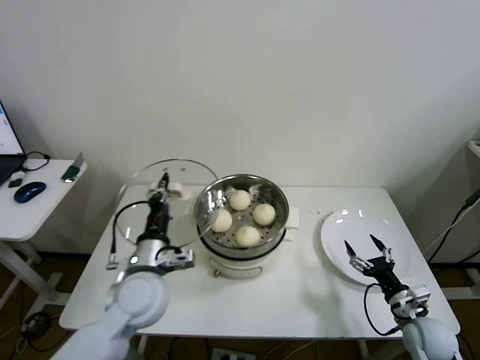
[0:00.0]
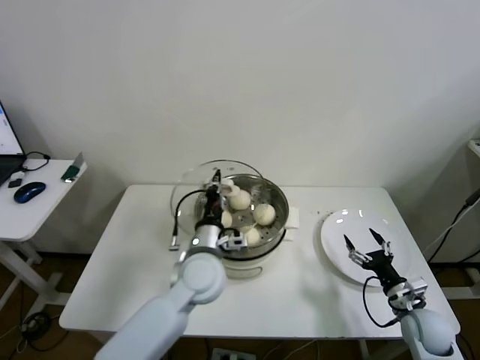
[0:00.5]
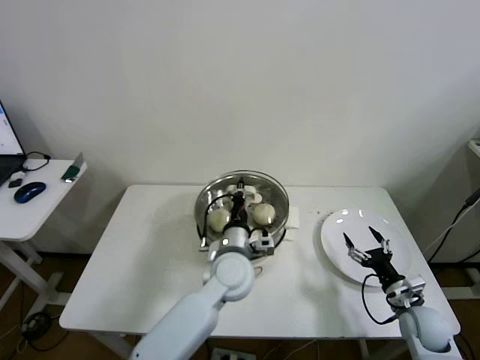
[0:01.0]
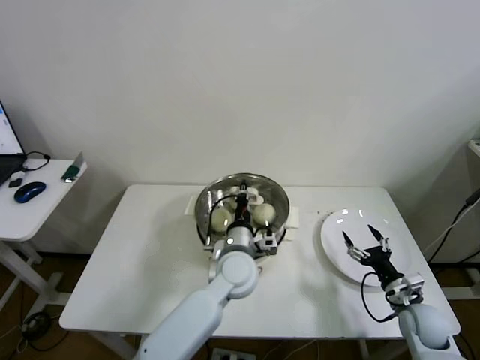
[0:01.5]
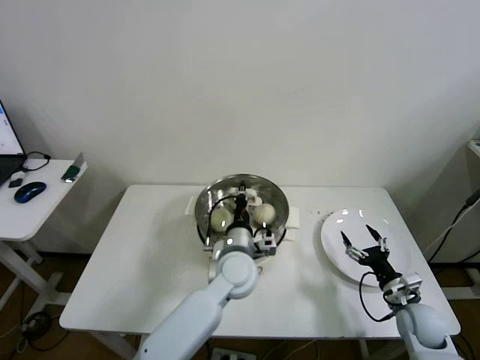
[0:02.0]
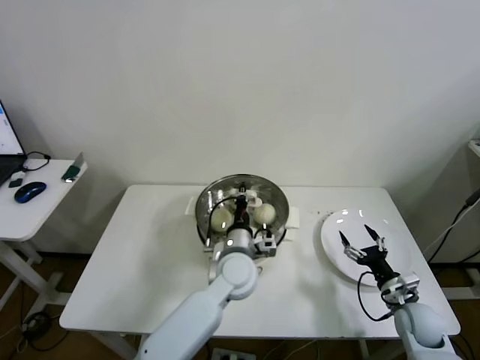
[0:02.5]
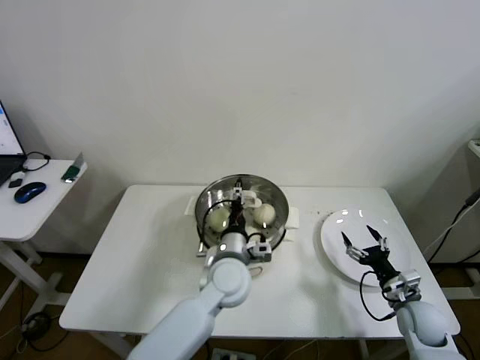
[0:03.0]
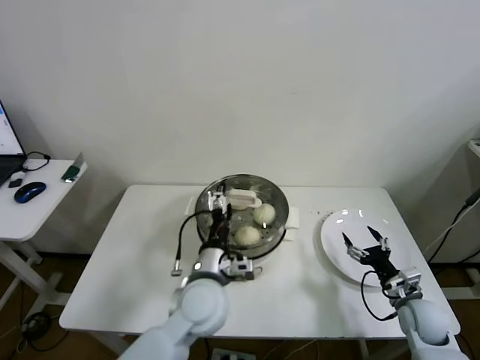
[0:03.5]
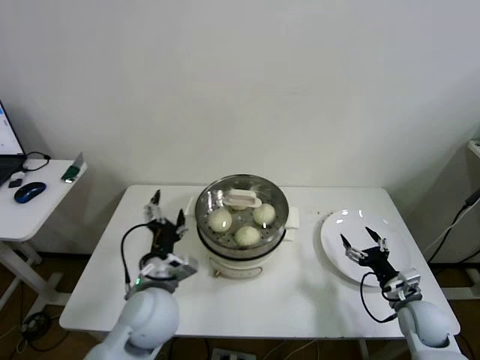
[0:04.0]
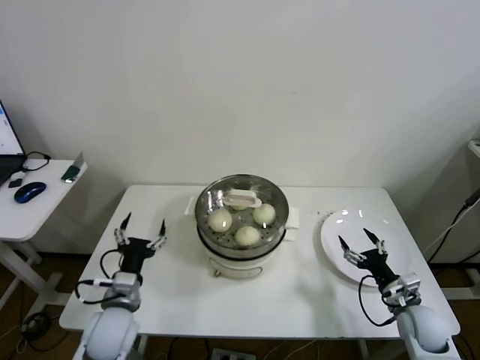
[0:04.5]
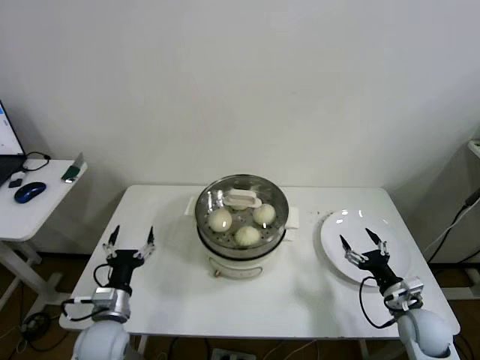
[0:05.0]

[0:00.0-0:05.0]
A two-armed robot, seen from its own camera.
Step, 0:00.0 to 0:03.0: Place the pot lid on the steamer with left gripper.
0:00.0 to 0:02.5: The left gripper heads to the right and forward, covering some 20 cm.
0:02.5 to 0:05.0: The left gripper heads to the left and backward, covering roughly 30 cm, and opens its fingers.

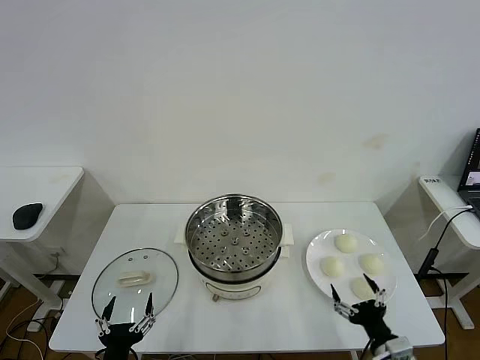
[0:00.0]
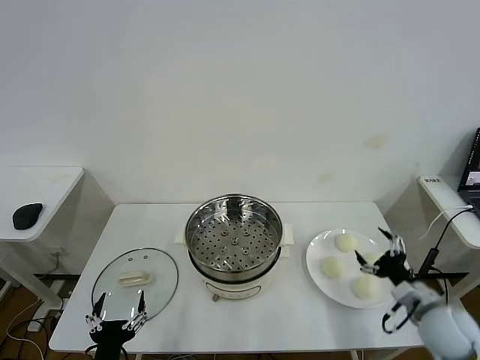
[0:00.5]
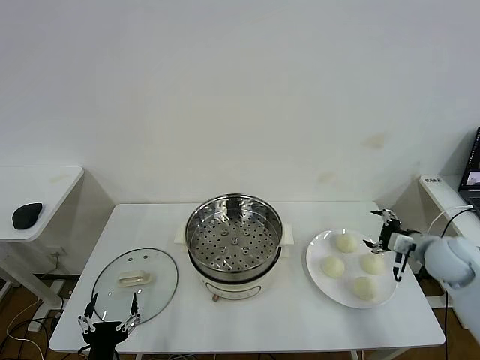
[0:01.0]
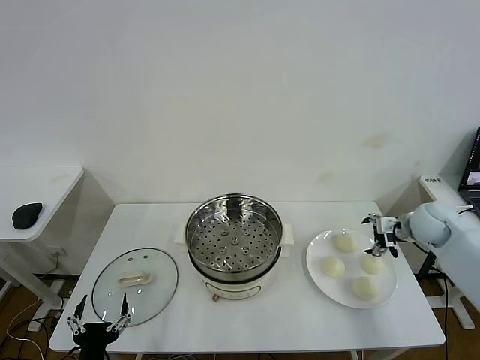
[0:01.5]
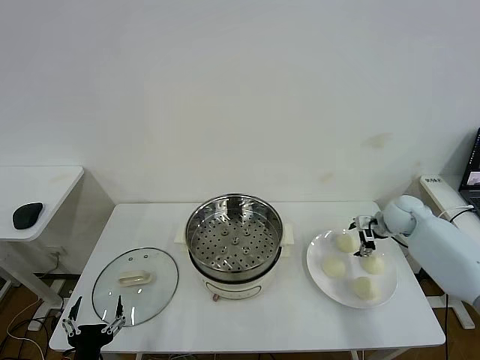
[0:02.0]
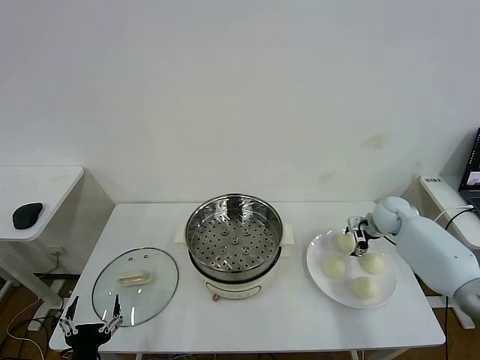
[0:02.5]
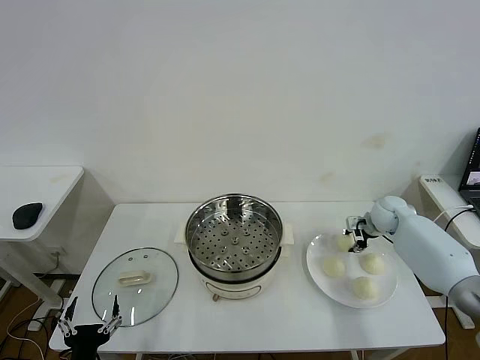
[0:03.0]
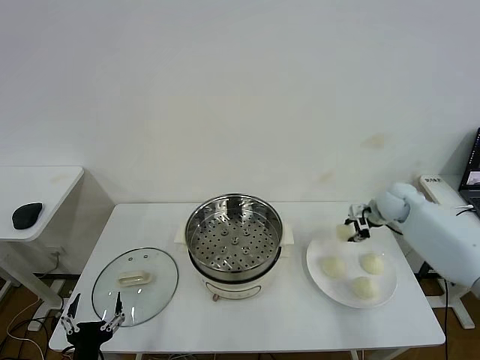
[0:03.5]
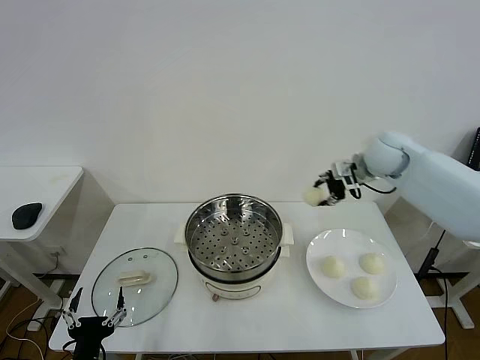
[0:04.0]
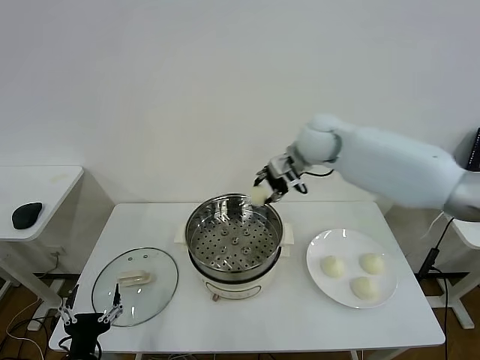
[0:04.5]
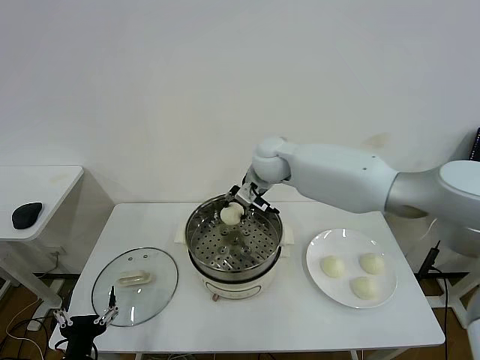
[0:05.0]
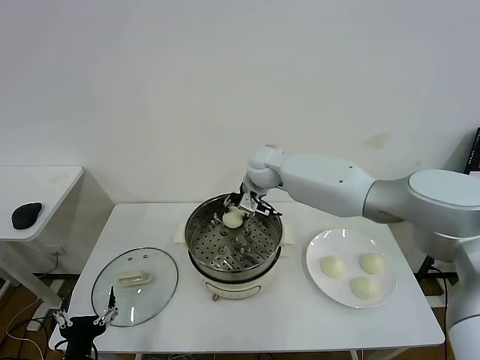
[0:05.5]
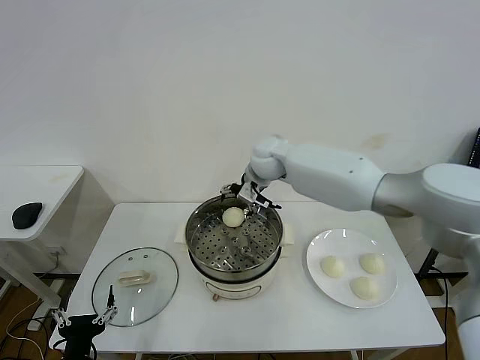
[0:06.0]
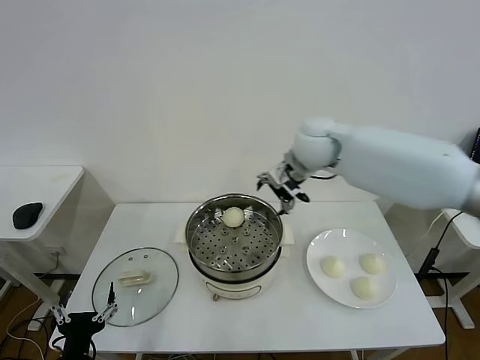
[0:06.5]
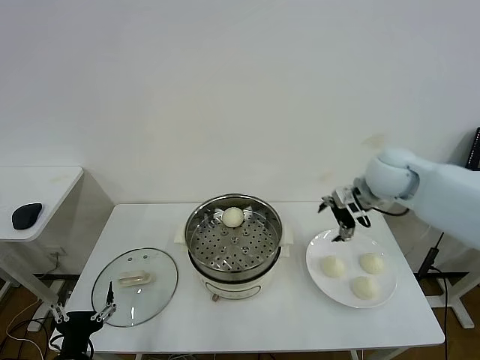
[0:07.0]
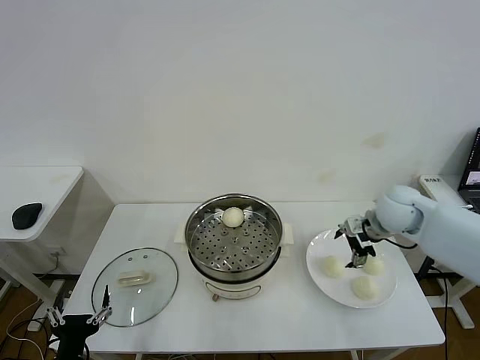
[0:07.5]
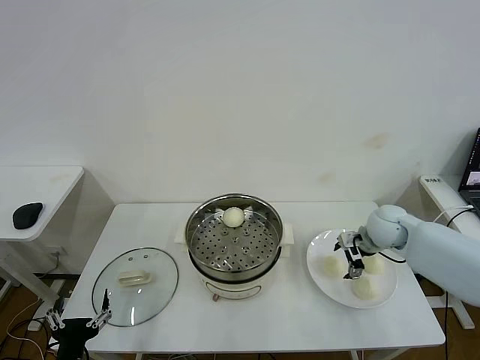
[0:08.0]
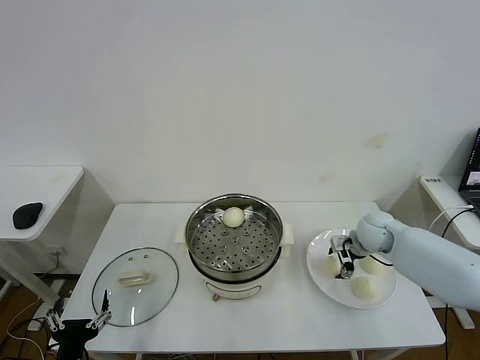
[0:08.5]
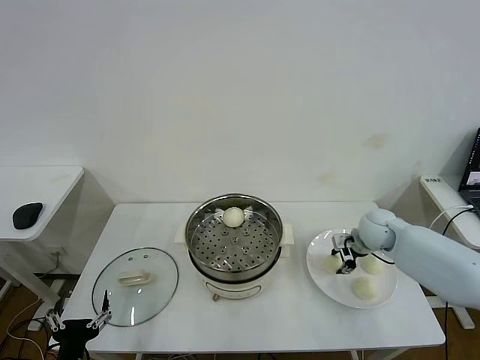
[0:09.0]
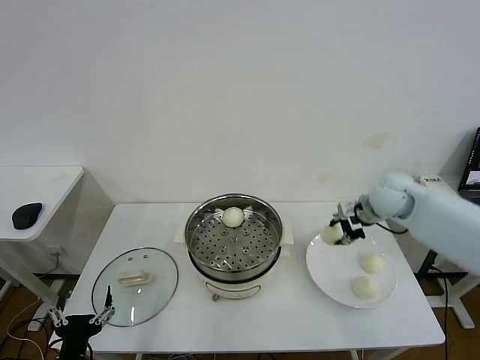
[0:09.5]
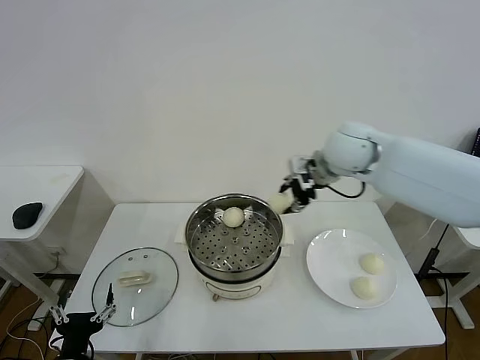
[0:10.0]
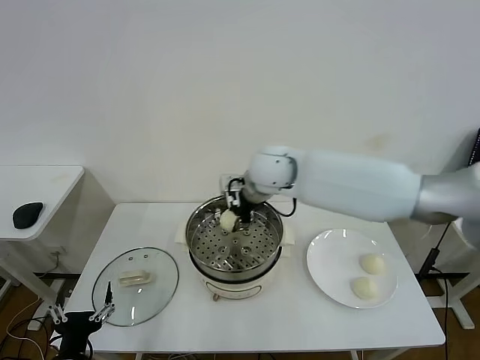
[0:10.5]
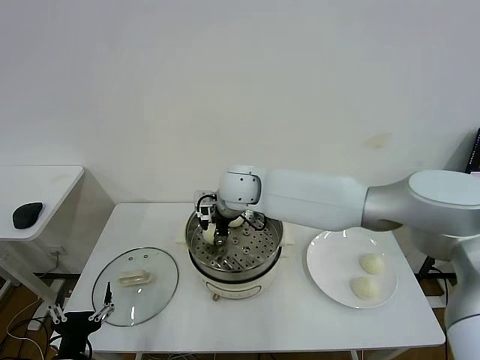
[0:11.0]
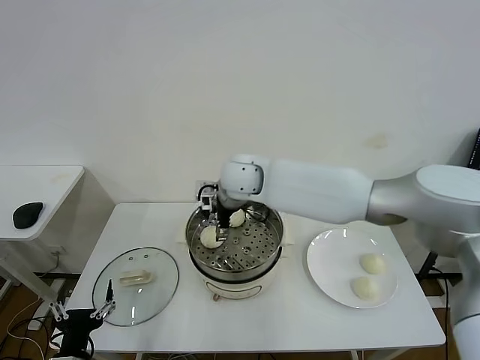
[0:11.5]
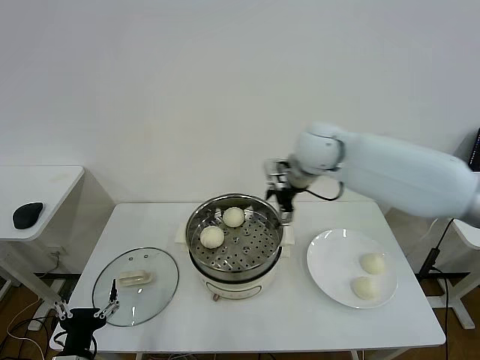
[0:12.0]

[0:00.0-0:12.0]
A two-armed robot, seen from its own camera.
Step, 0:00.0 to 0:02.5: Grasp the baozi in the plate with right gripper.
Step, 0:03.5 to 0:05.5: Place the baozi on the steamer with right gripper.
Step, 0:06.0 to 0:08.5: Grasp the baozi in the plate with right gripper.
Step, 0:09.0 to 0:11.0: Place the baozi on the steamer with right gripper.
0:02.0 to 0:04.0: The right gripper shifts approximately 25 cm upward and to the left, and closes.
0:04.0 to 0:06.0: The right gripper moves to the left, approximately 20 cm, and opens up.
0:06.0 to 0:08.0: The right gripper goes approximately 30 cm to the right and downward.
0:08.0 to 0:10.0: The right gripper travels upward and to the left by about 30 cm, and closes its fingers.
0:10.0 to 0:12.0: The right gripper goes to the left and returns, about 15 cm each way, and opens its fingers.

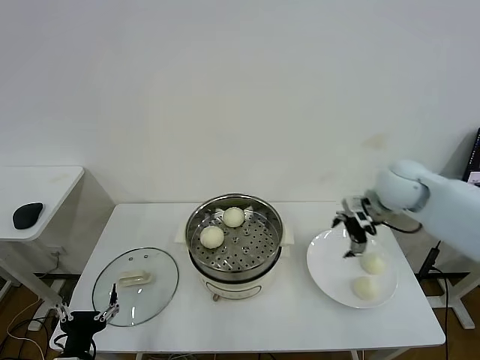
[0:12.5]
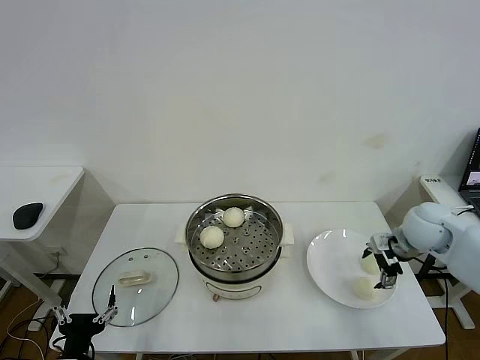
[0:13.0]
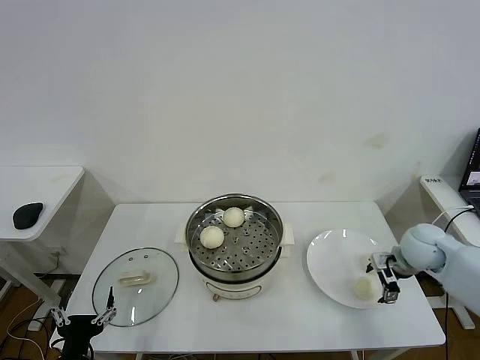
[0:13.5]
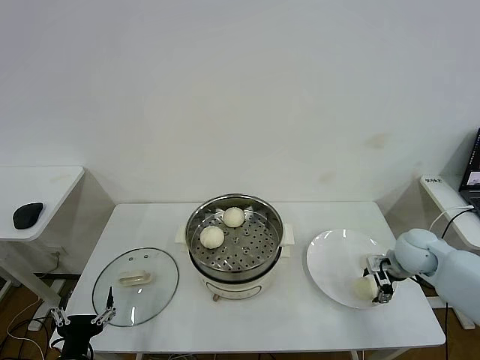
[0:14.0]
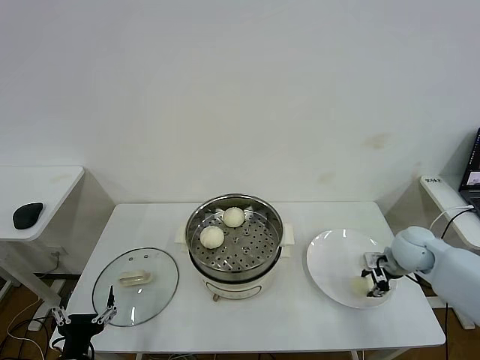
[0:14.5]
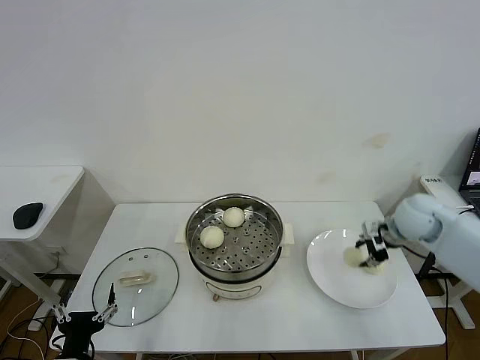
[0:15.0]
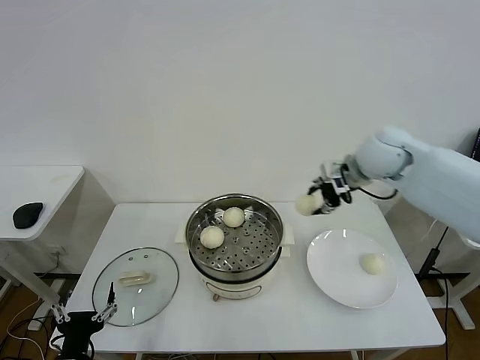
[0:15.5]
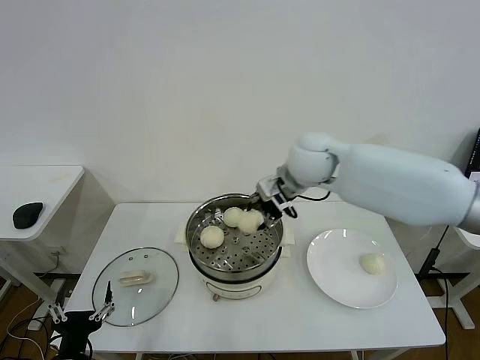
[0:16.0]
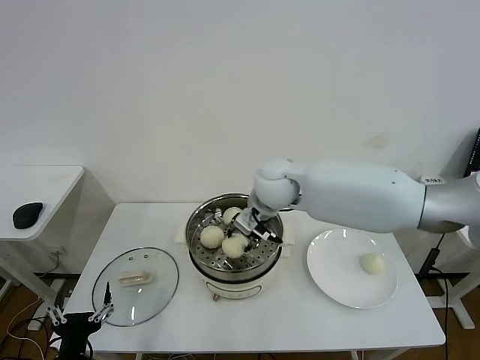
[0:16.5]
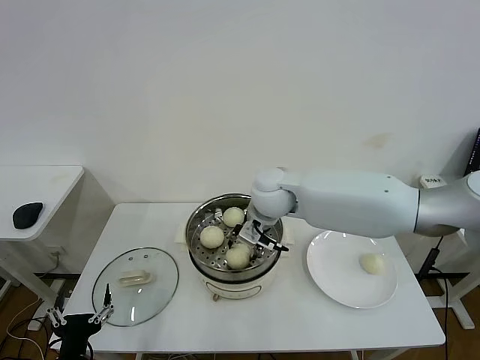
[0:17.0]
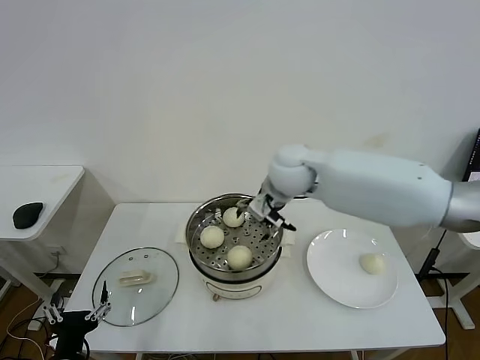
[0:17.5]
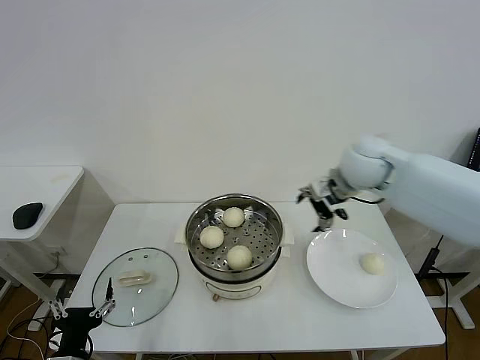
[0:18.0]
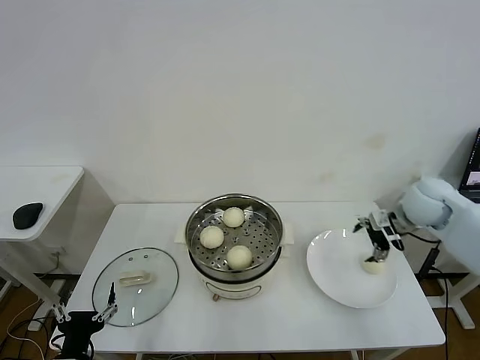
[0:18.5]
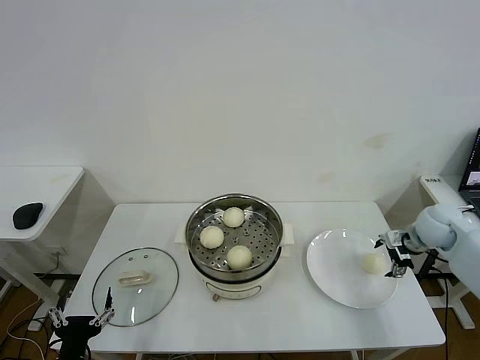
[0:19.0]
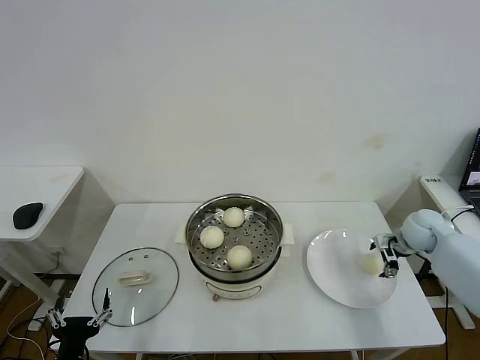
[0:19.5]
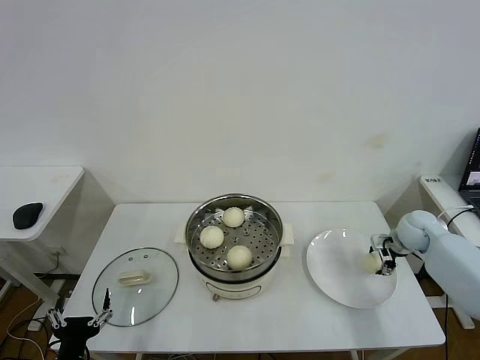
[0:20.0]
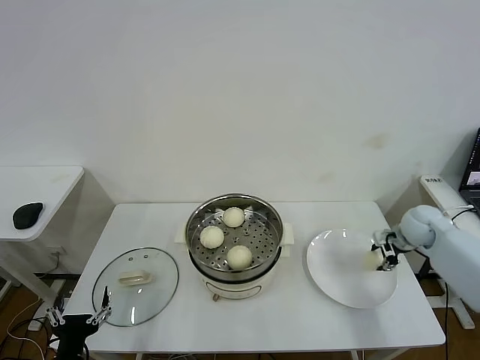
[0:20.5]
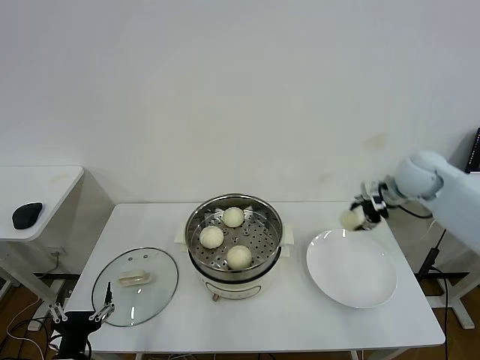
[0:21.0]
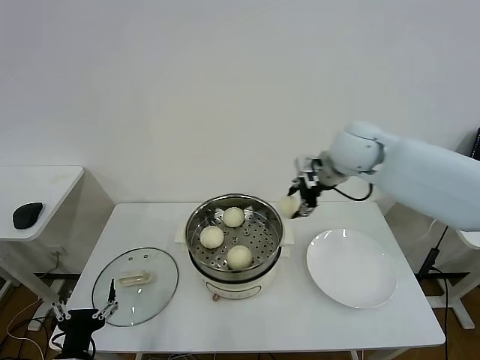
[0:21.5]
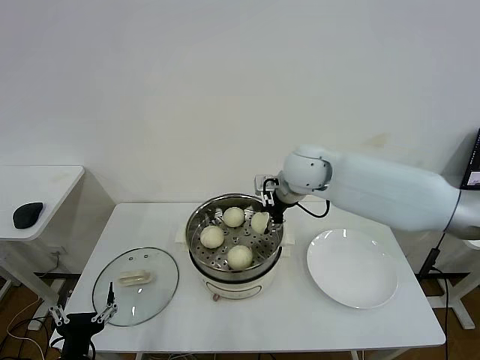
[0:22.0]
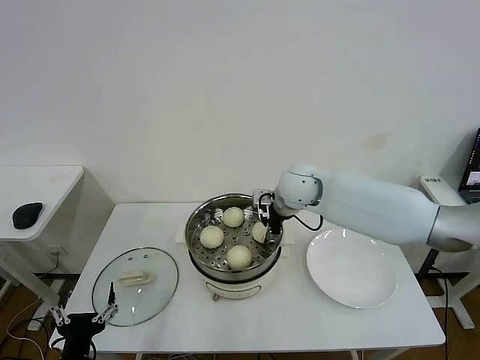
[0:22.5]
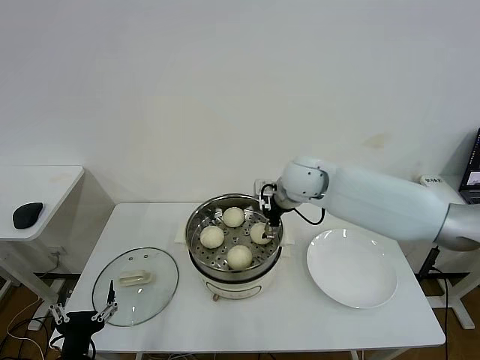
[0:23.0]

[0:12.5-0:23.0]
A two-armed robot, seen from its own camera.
Step, 0:12.5 to 0:14.5: Grasp the baozi in the plate with right gripper.
Step, 0:15.0 to 0:17.0: Place the baozi on the steamer with right gripper.
Step, 0:17.5 to 0:20.0: Grasp the baozi in the plate with right gripper.
Step, 0:20.5 to 0:22.5: Place the baozi on the steamer with right gripper.
0:12.5 to 0:14.5: The right gripper goes about 15 cm downward and to the right, and closes.
0:14.5 to 0:16.5: The right gripper heads to the left and upward, covering about 35 cm.
0:16.5 to 0:19.0: The right gripper is displaced to the right by roughly 40 cm, and opens.
0:19.0 to 0:21.0: The right gripper is displaced upward and to the left by approximately 15 cm, and closes its fingers.
0:21.0 to 0:23.0: The right gripper heads to the left, covering approximately 25 cm, and opens its fingers.
